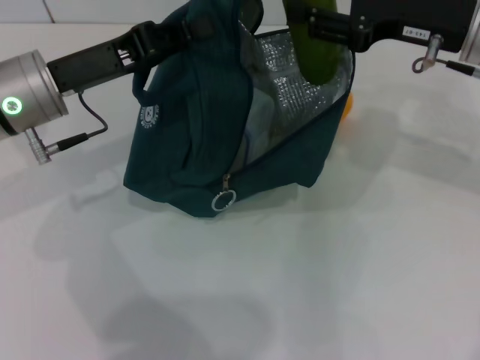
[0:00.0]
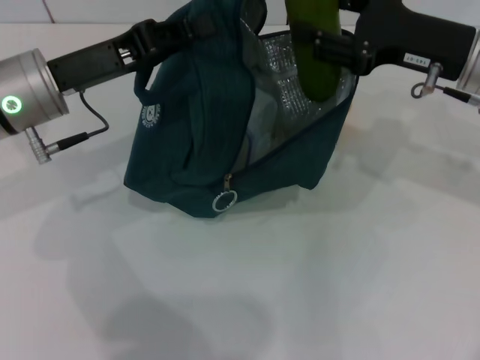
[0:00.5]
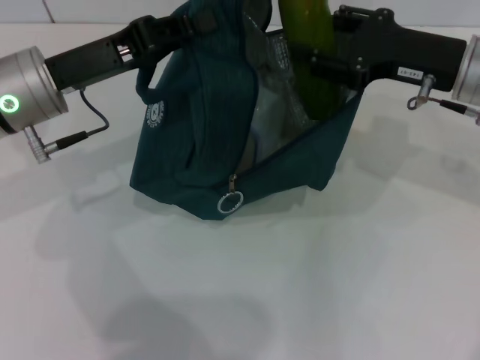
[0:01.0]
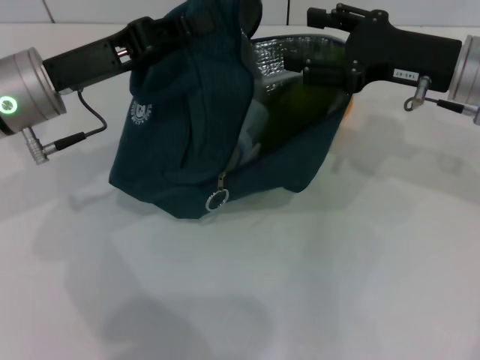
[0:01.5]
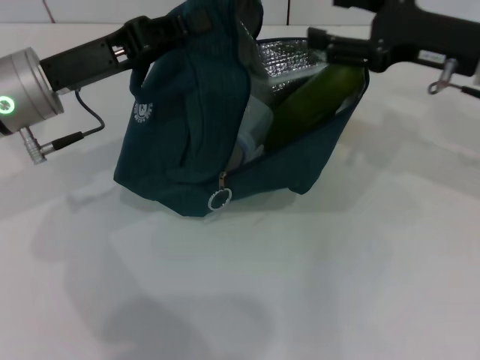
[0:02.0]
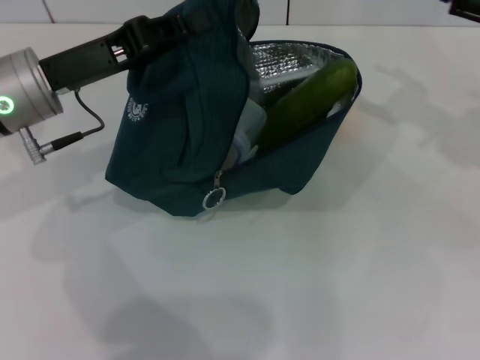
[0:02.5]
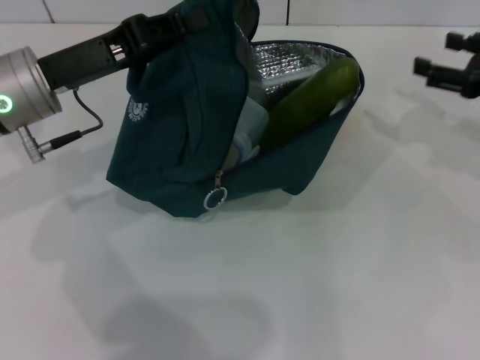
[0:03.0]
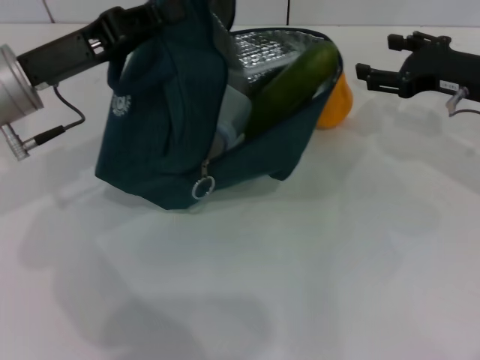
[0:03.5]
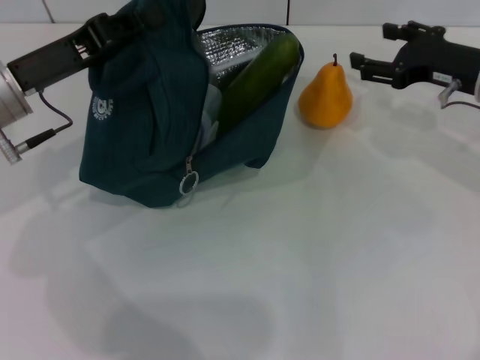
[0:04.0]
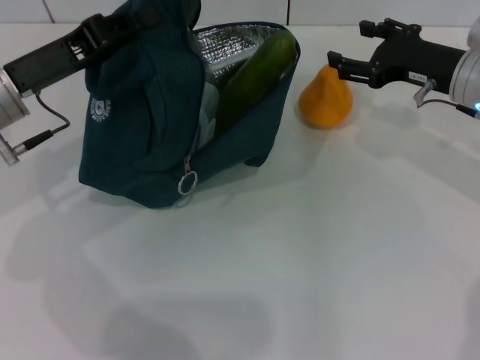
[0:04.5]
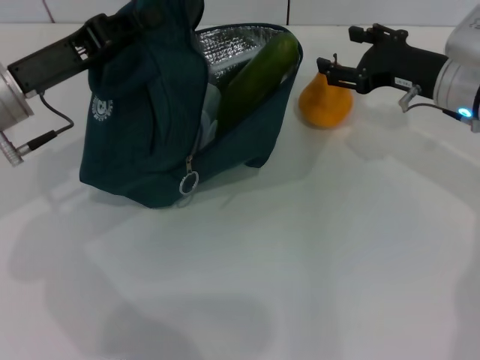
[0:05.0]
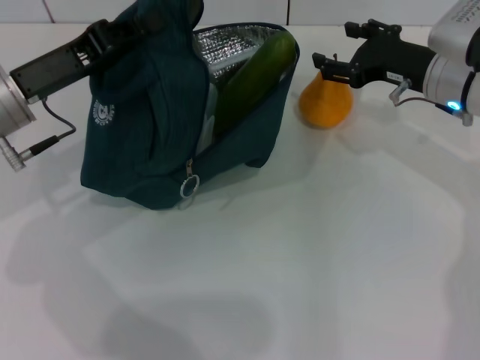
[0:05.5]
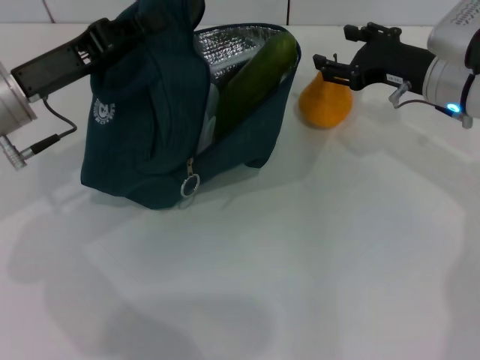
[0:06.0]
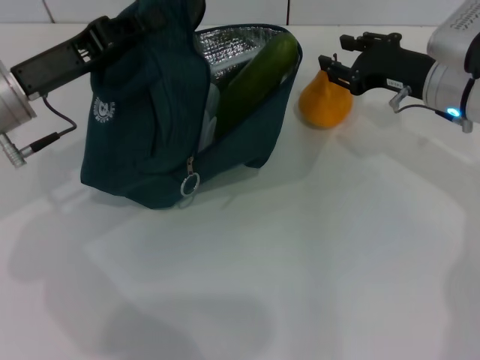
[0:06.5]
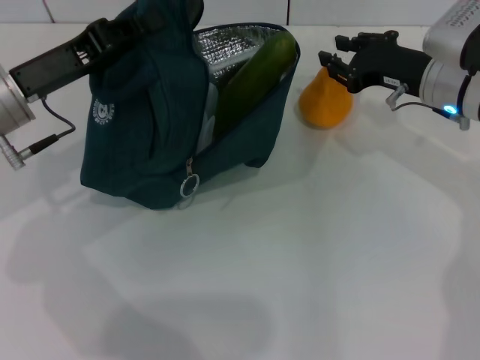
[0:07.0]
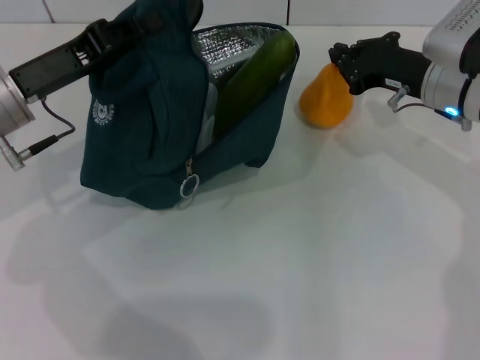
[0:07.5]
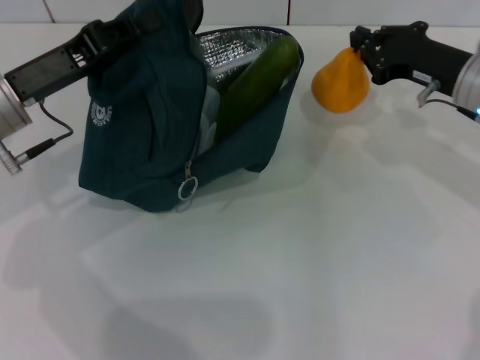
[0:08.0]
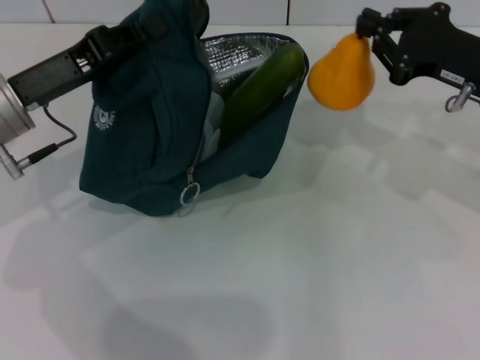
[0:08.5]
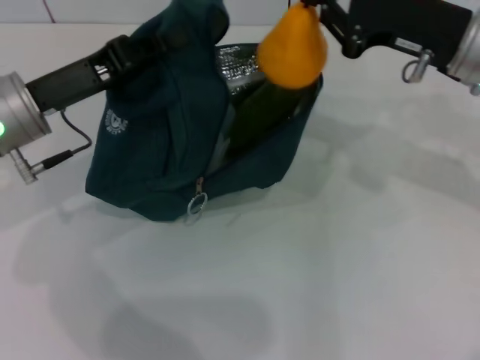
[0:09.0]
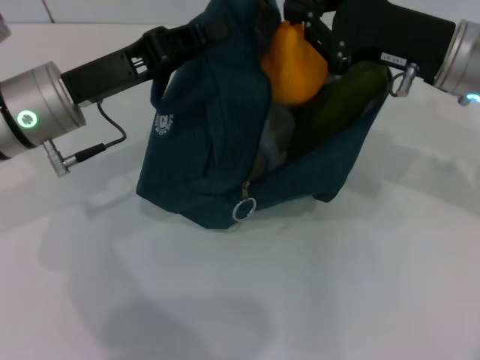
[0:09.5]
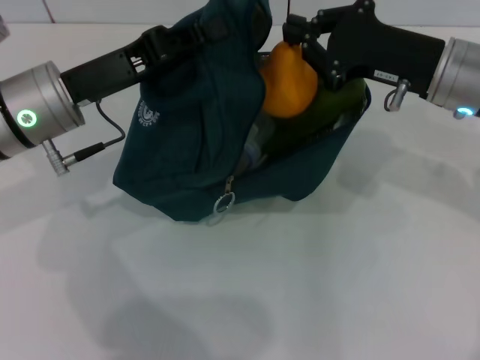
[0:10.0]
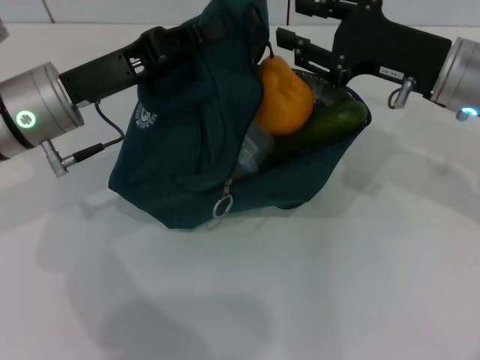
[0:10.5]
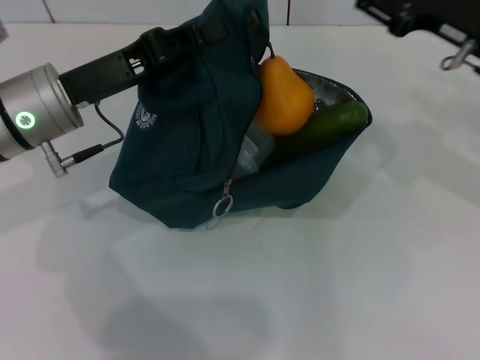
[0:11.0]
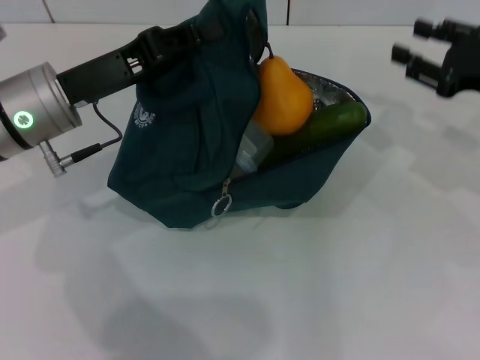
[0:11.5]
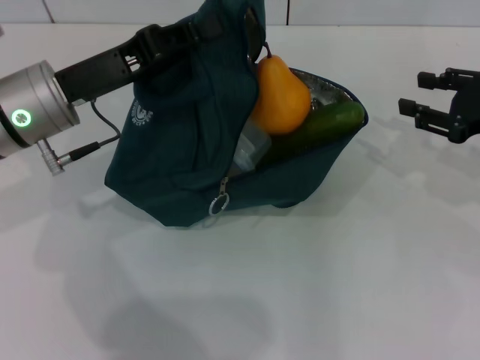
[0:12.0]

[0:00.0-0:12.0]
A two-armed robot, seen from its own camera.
Step, 0:02.0 to 0:07.5: Grab the pear with your right hand.
Step, 0:08.0 to 0:10.0: Secure the lunch bag with your left hand.
0:00.0 to 0:02.0: The grippers move only a little.
0:02.0 to 0:04.0: The right gripper goes to the right and returns, roughly 10 cm each way.
0:04.0 to 0:06.0: The grippers make only small movements.
0:06.0 to 0:08.0: The right gripper closes up.
0:08.0 to 0:10.0: The right gripper moves some 5 cm.
0:10.0 to 0:12.0: The right gripper goes roughly 10 cm to the right, and opens its fingers.

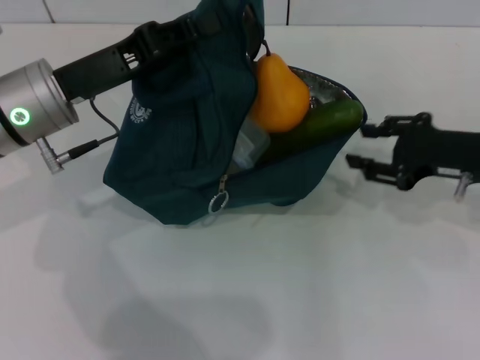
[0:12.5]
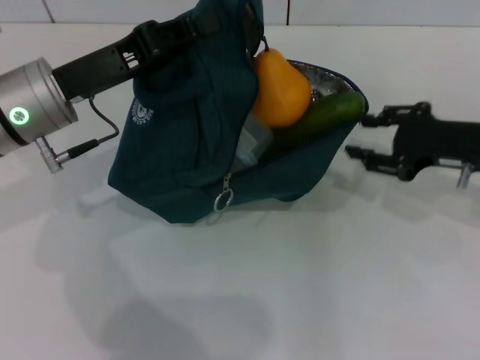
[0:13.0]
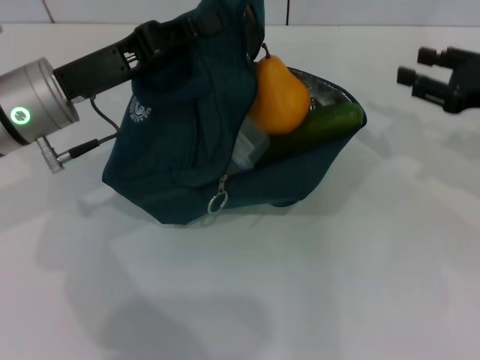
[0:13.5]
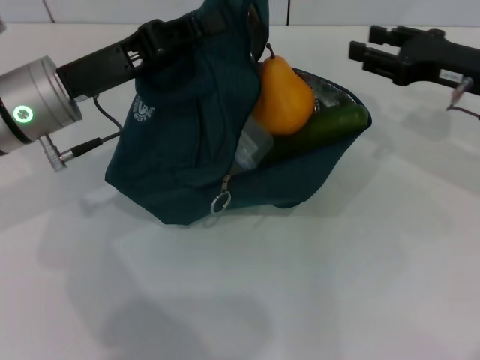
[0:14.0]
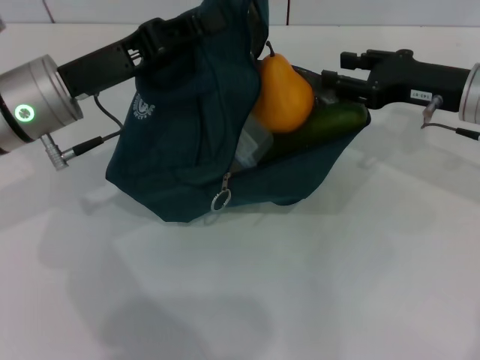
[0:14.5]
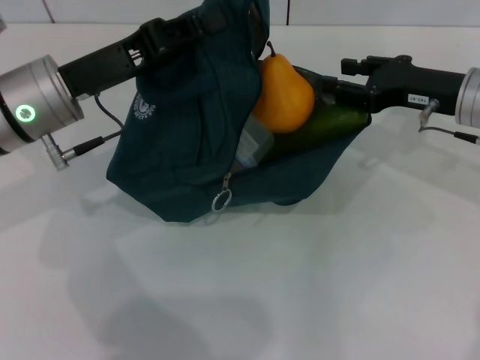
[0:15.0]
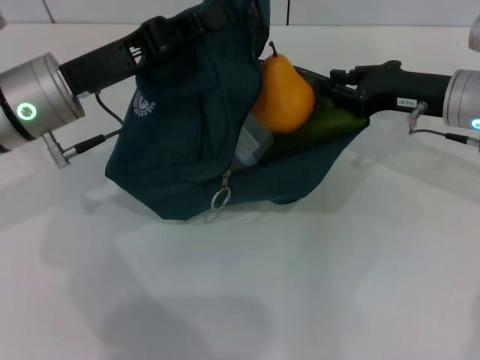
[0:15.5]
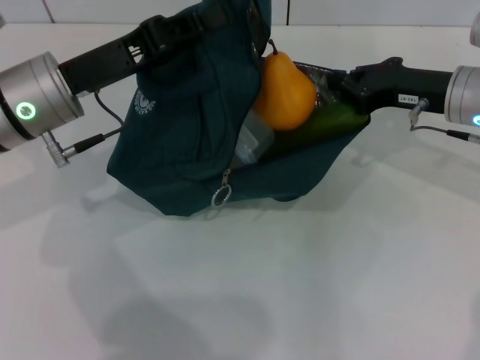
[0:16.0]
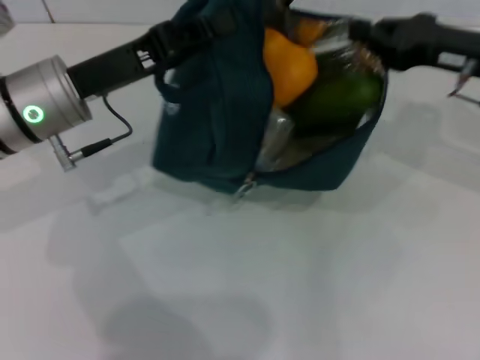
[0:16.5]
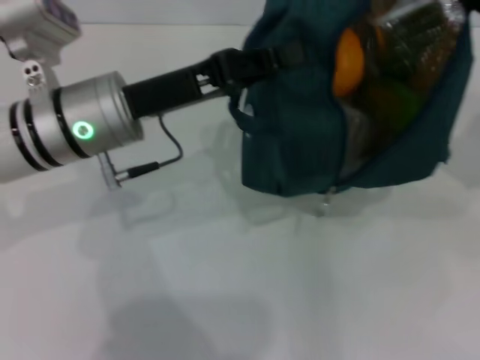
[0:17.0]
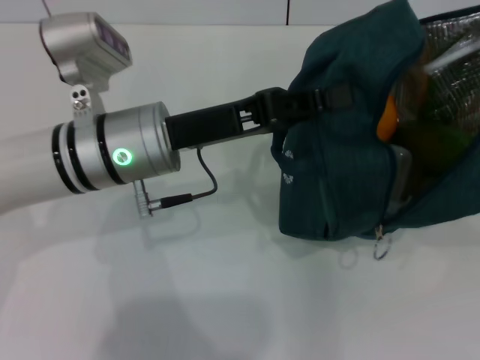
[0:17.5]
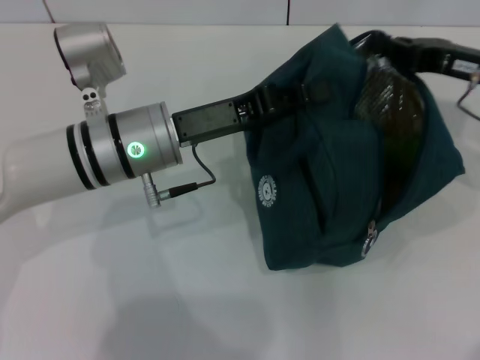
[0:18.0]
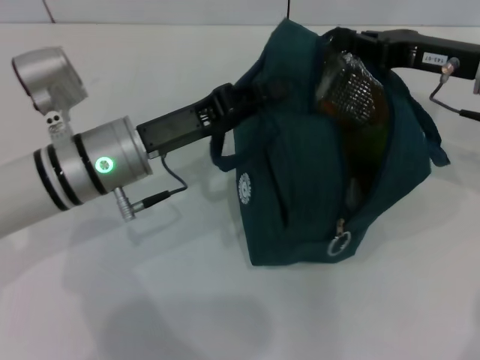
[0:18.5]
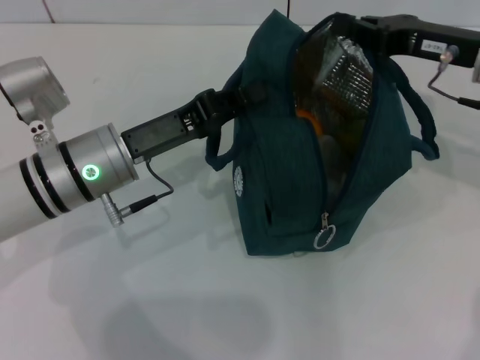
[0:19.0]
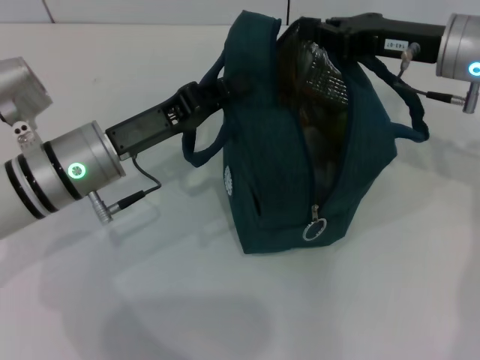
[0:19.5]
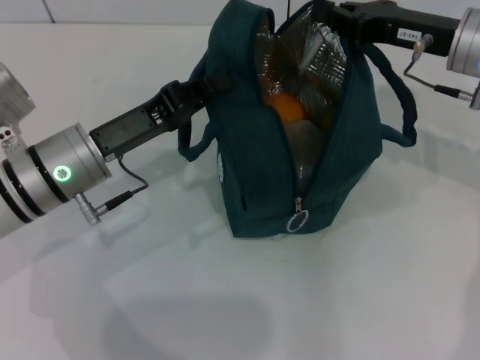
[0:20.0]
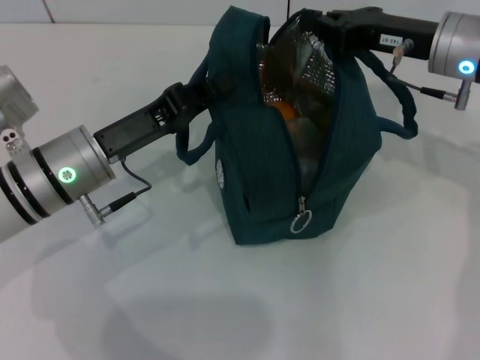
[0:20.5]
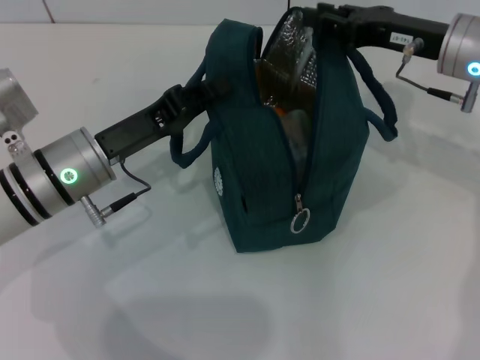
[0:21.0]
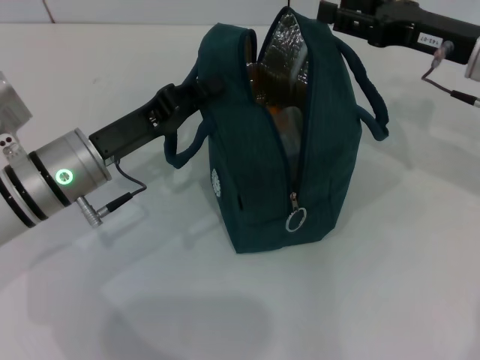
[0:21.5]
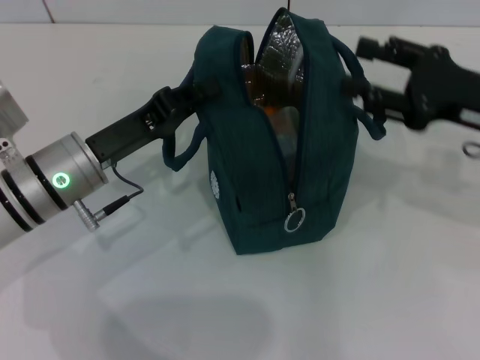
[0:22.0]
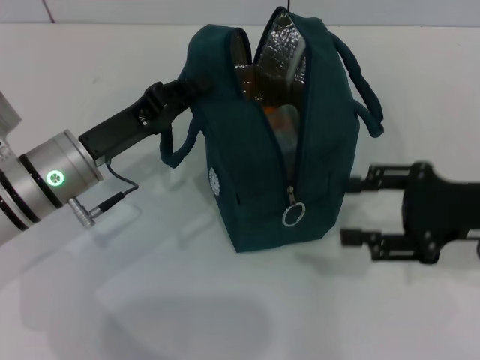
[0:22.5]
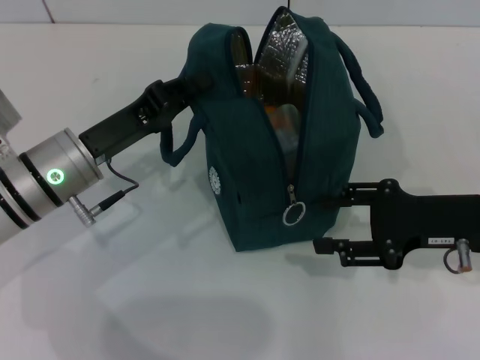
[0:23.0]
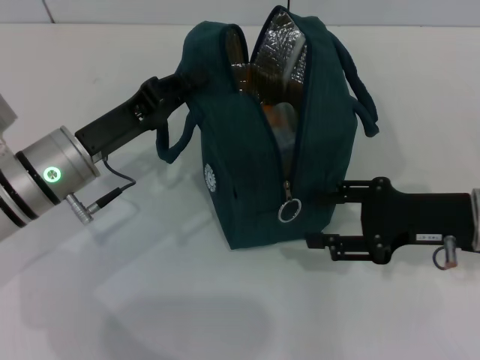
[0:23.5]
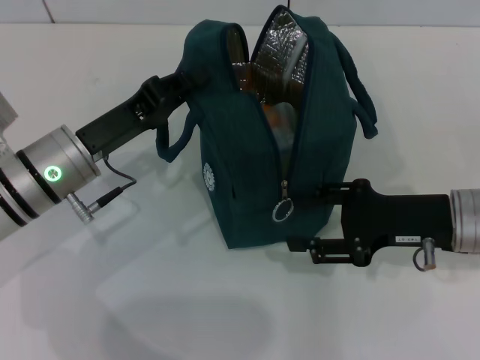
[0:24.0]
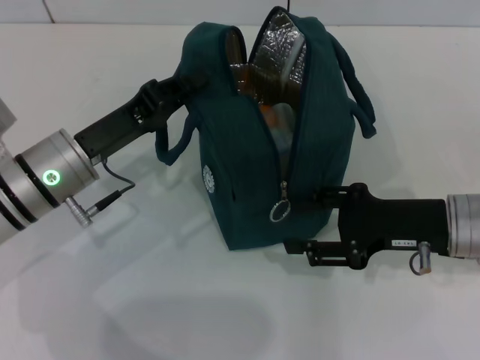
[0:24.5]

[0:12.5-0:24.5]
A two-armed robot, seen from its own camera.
Step, 0:12.5 to 0:21.0: Hold the lunch bag with your right hand.
0:12.5 to 0:14.5: The right gripper shifts by approximately 5 cm.
0:14.5 to 0:16.5: The right gripper closes its fingers.
0:16.5 to 0:18.5: The left gripper shifts by about 5 cm; the right gripper reaches approximately 10 cm to the right, then returns.
0:20.5 to 0:22.5: The right gripper is displaced backward and to the right by roughly 15 cm, and opens up.
0:22.5 to 0:24.5: The right gripper goes approximately 5 cm to the left.

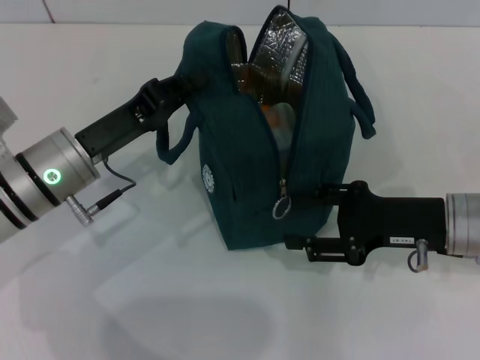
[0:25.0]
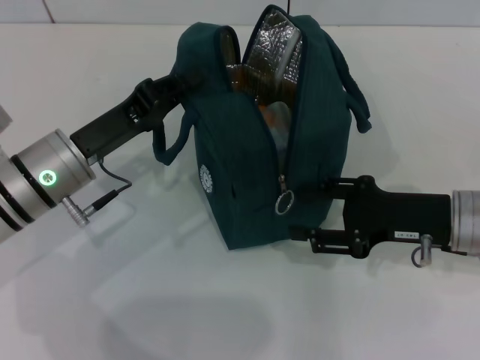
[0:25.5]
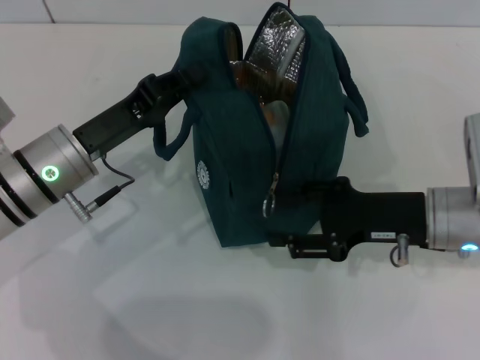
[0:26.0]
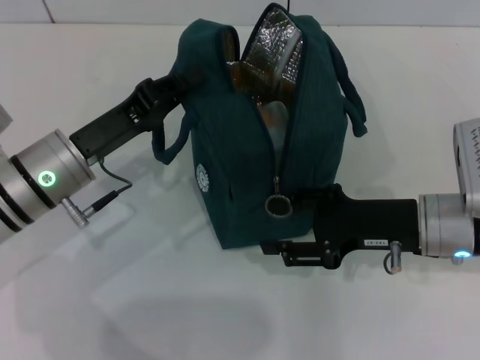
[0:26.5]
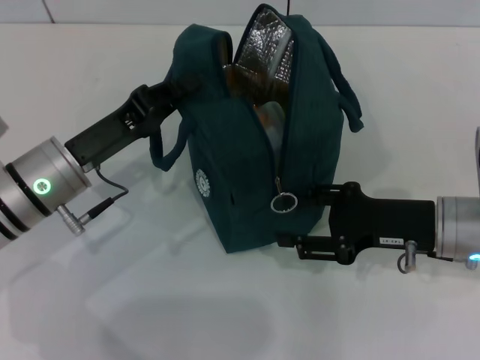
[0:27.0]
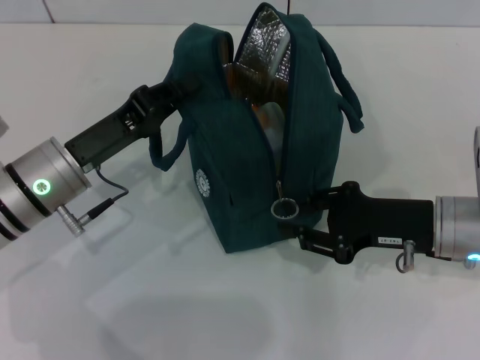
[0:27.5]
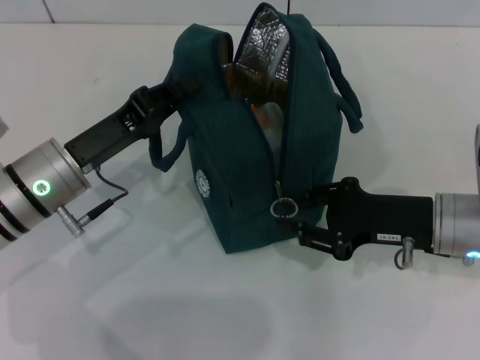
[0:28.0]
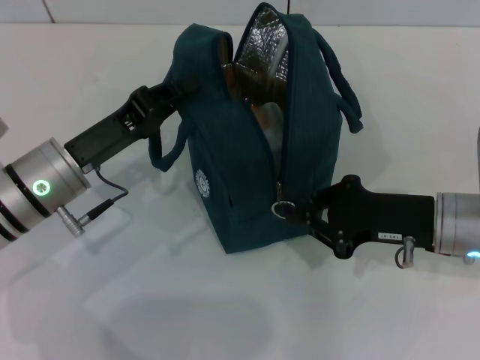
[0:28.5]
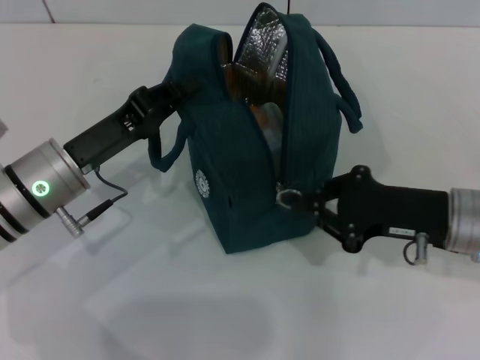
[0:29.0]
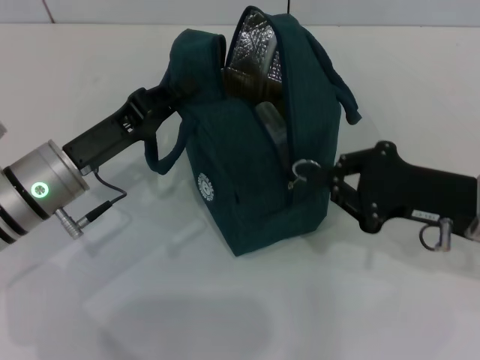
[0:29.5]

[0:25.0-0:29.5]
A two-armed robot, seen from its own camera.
0:25.0 to 0:27.0: The grippers stay close to where they were, moving slightly.
0:27.0 to 0:29.5: The right gripper closes up.
